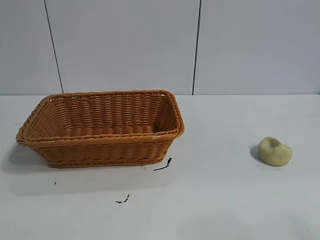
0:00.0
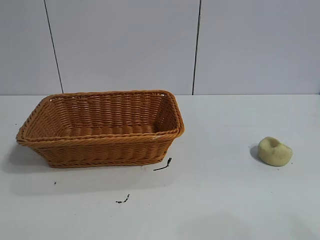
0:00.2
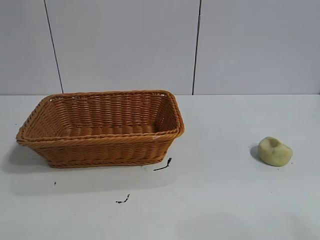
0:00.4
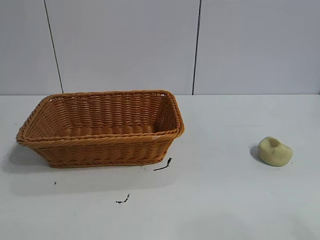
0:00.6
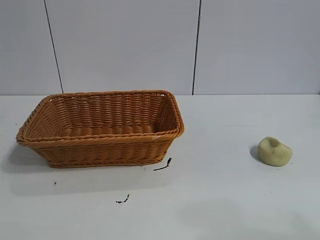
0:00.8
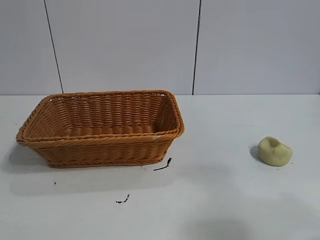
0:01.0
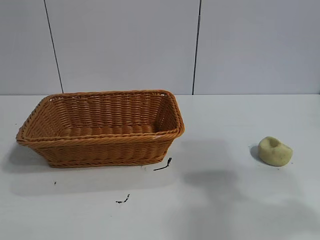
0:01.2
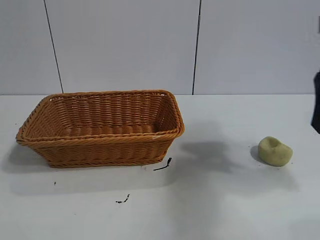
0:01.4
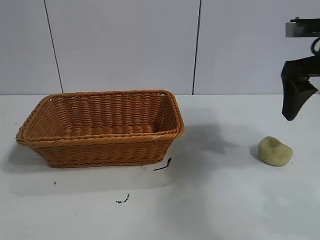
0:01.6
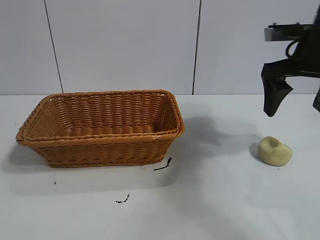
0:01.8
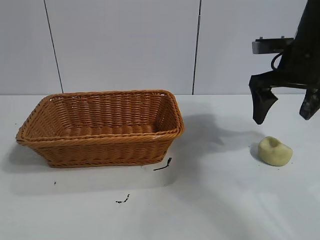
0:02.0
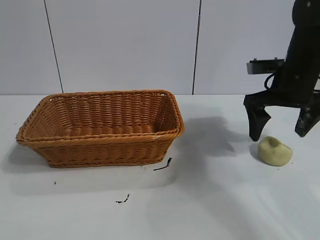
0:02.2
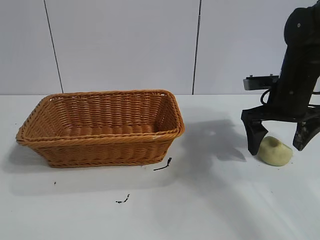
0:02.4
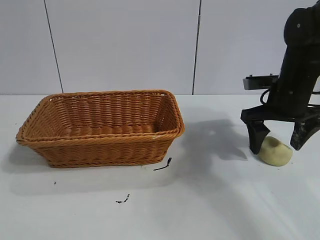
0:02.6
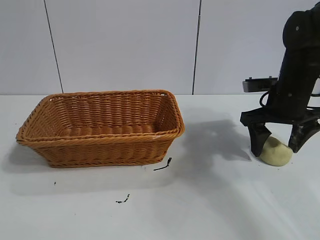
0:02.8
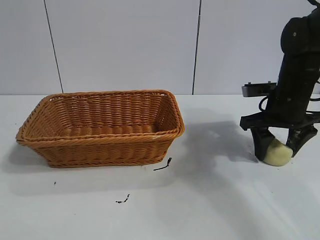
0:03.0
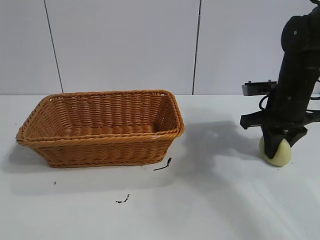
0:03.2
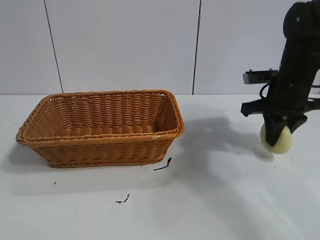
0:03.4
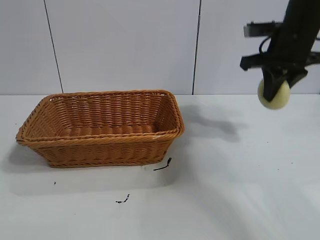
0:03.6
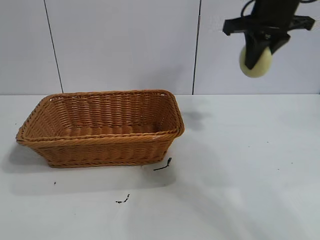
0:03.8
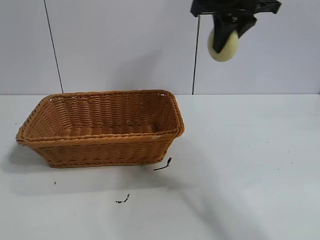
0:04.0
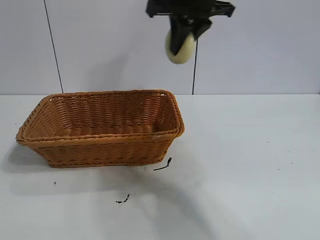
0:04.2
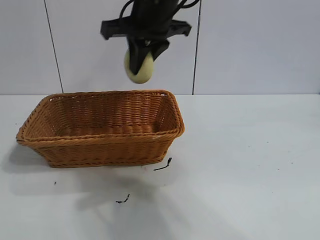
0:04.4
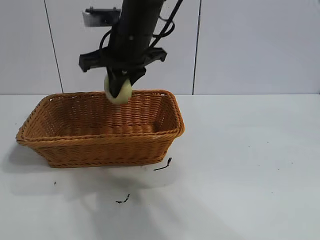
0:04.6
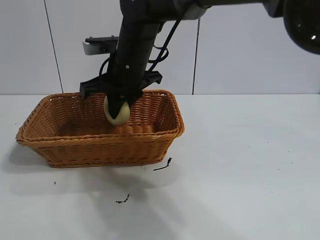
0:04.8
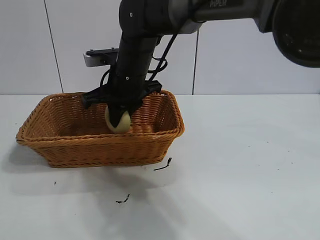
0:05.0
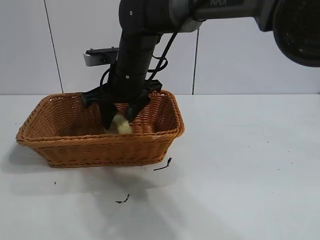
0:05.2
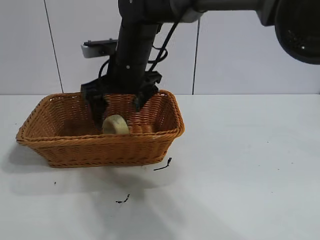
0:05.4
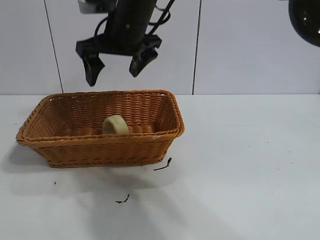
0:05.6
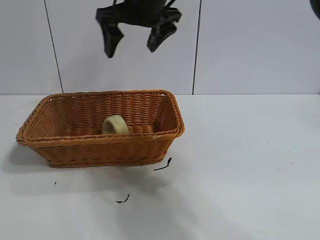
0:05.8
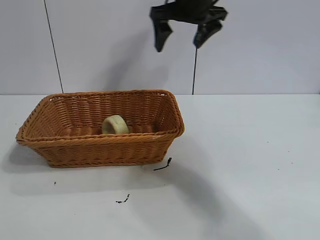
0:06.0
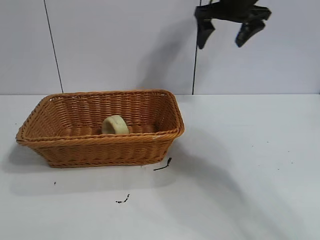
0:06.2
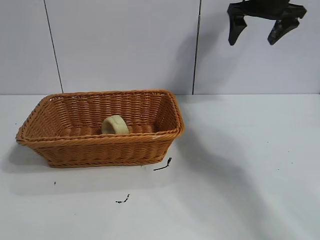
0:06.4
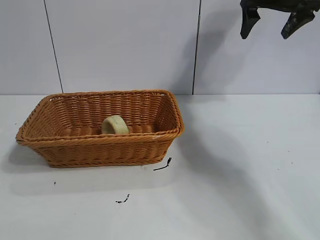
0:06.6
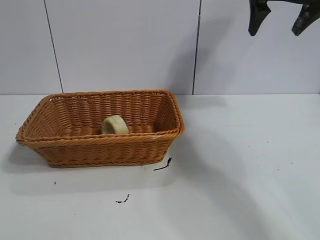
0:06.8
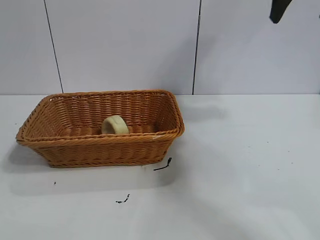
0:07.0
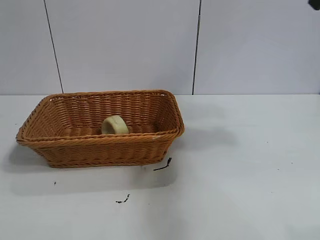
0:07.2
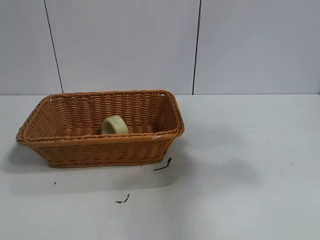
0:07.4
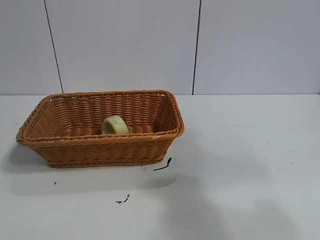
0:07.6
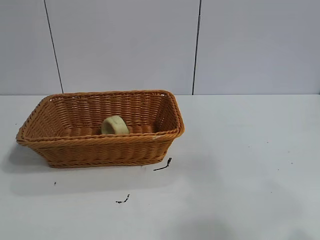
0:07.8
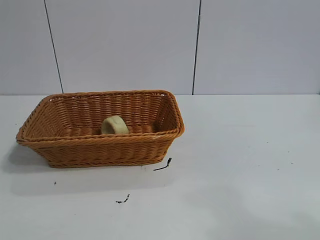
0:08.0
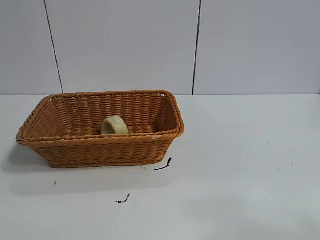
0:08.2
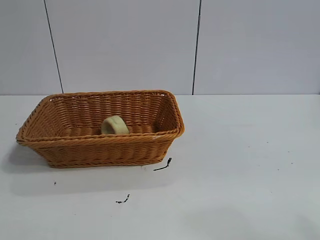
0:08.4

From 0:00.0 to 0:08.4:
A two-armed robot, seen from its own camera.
Task of the whole recording: pick up the egg yolk pastry and put it into the basket.
Step, from 0:00.8 to 0:03.0: Grasp egg yolk pastry with right gripper.
Step, from 0:03.2 to 0:05.2: Place the egg yolk pastry in the basket with right gripper.
